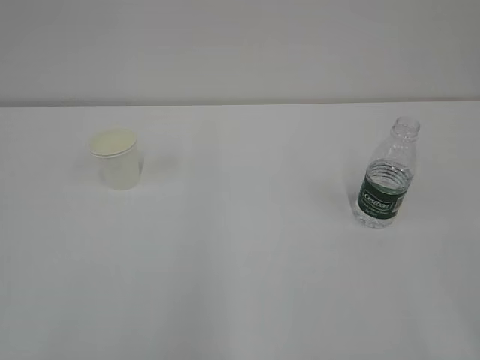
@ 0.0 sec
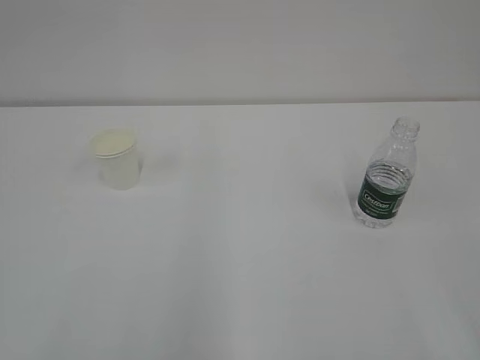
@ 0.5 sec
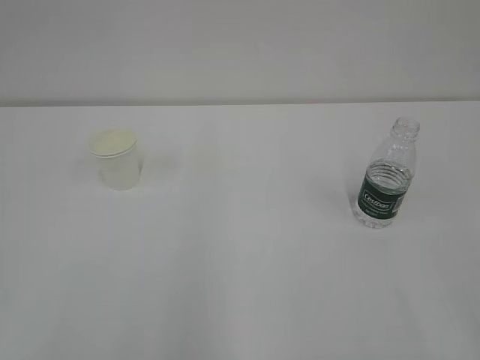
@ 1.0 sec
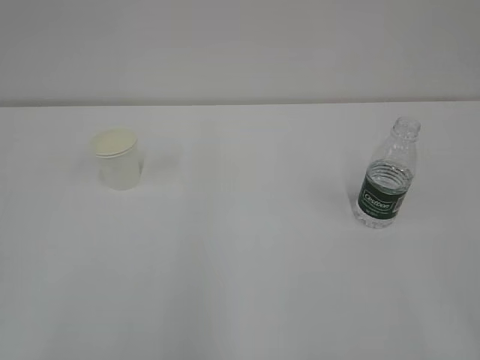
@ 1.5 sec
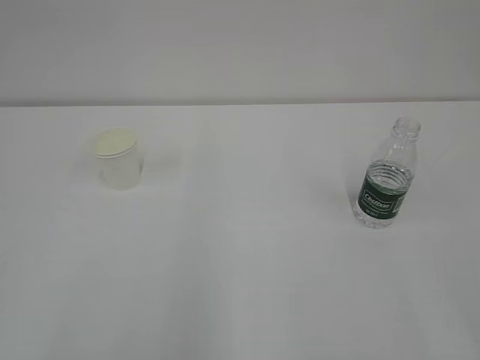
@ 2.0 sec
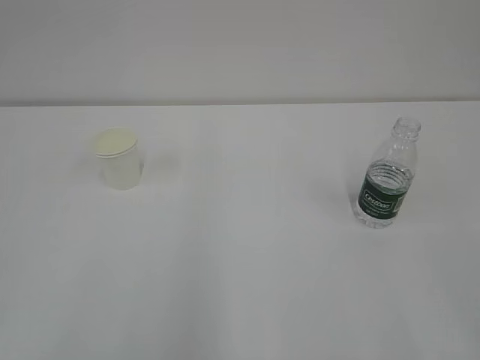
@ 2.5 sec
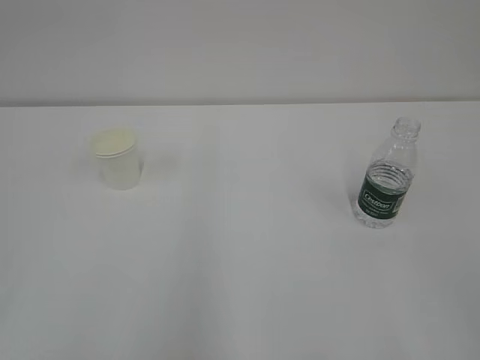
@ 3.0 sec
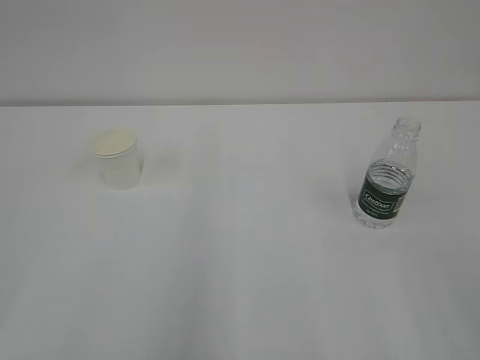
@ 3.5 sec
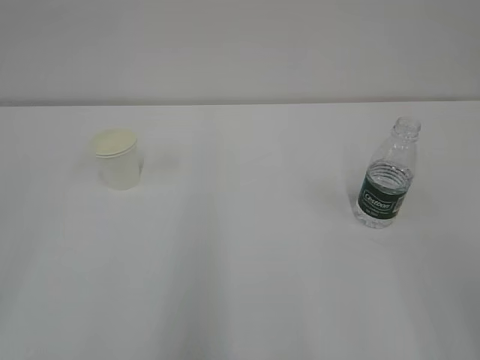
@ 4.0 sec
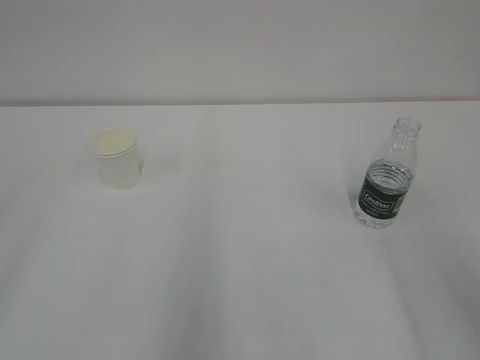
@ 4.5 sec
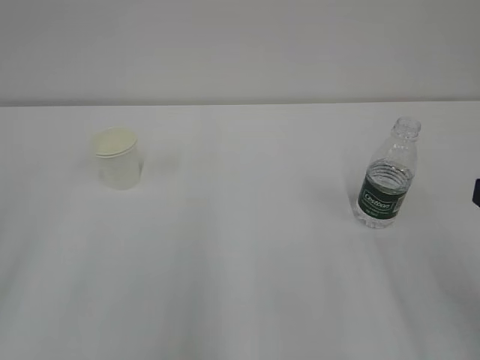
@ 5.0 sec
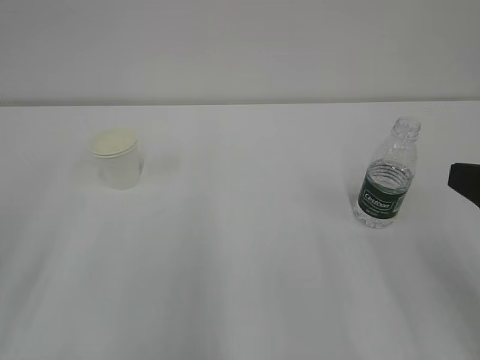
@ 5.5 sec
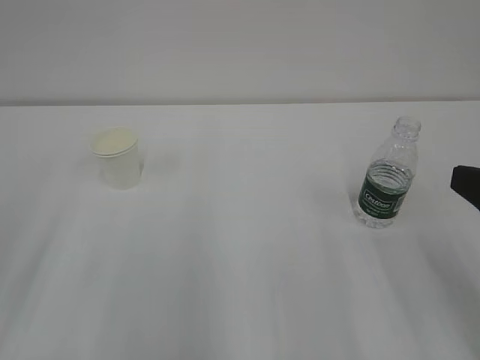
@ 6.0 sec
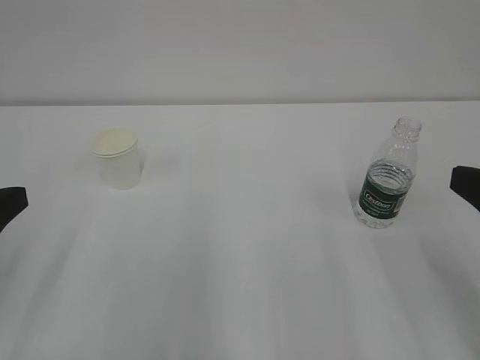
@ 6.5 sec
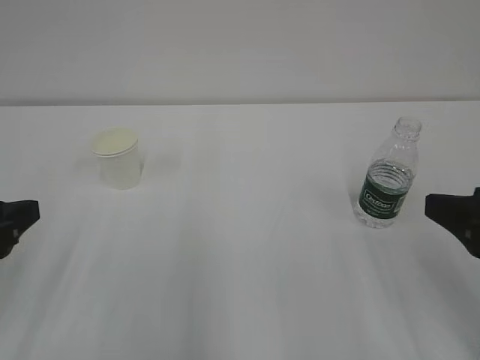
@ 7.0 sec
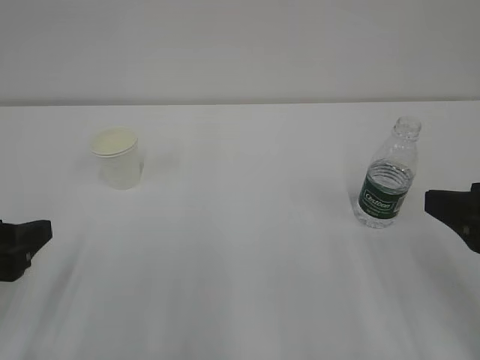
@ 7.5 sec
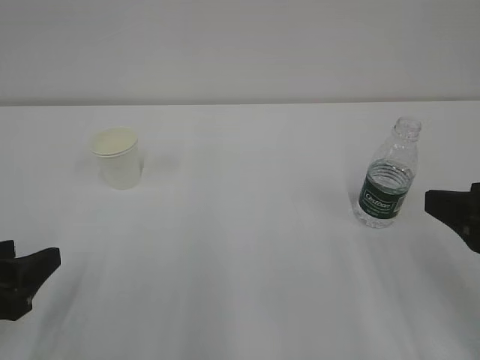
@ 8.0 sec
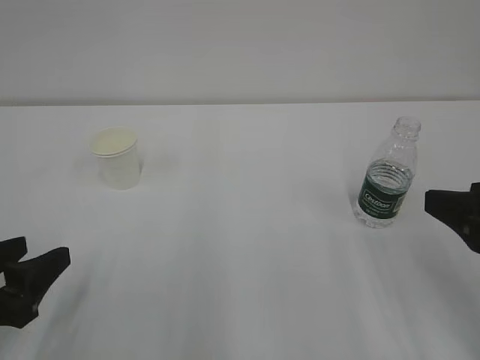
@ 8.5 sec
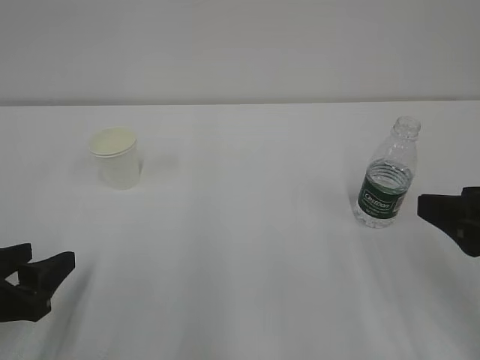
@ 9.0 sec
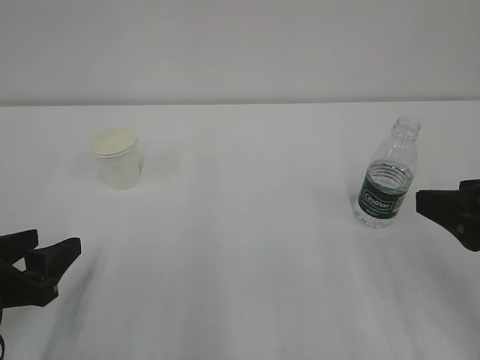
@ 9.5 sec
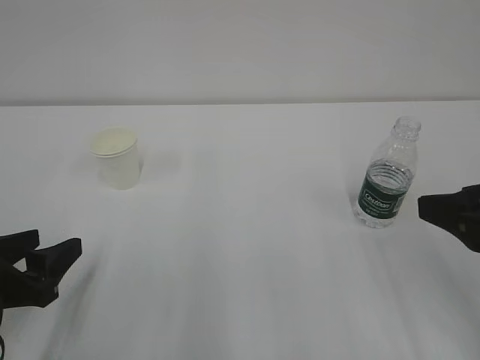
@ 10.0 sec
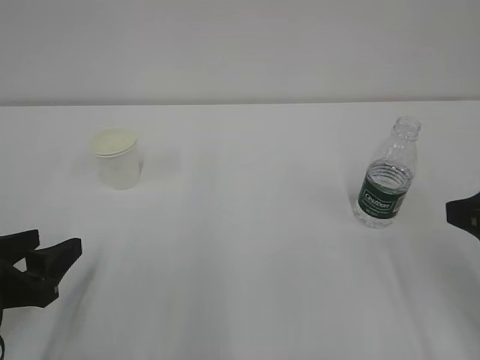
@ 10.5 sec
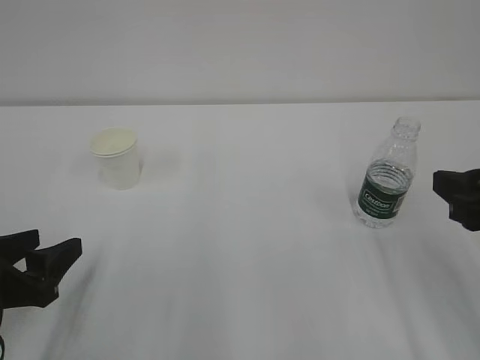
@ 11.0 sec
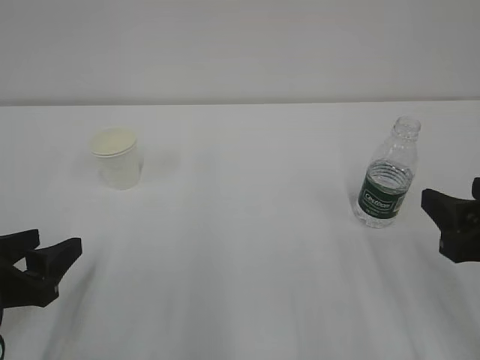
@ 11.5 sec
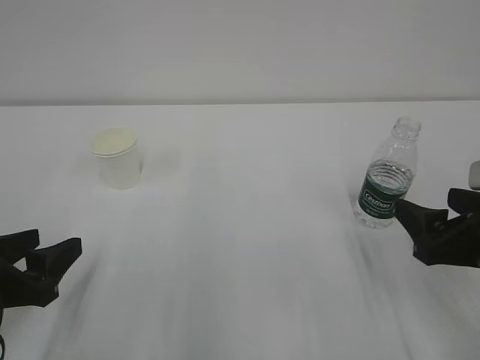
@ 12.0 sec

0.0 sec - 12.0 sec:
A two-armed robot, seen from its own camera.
6.0 sec - 8.0 sec: The left gripper goes approximately 10 cm downward.
8.0 sec - 10.0 sec: The grippers move only a little.
10.0 sec - 12.0 sec: The right gripper is displaced downward by about 5 cm, and opens up.

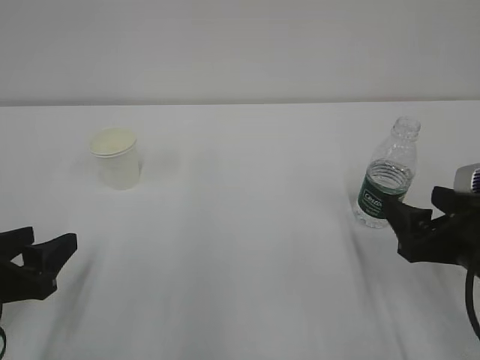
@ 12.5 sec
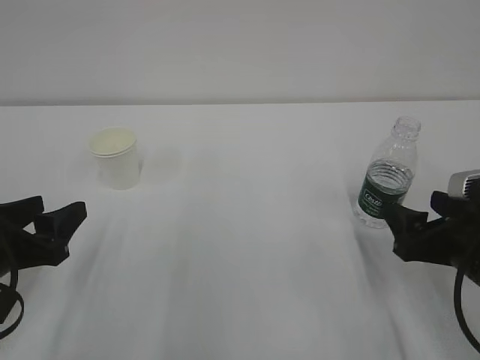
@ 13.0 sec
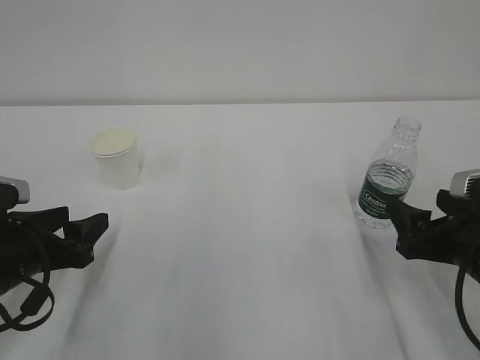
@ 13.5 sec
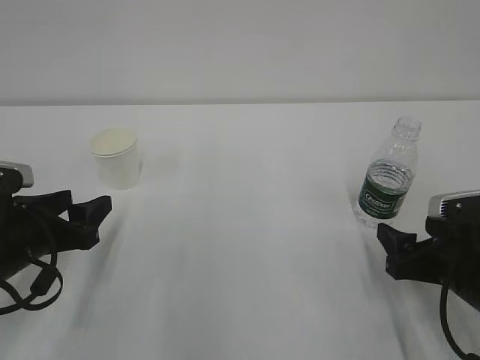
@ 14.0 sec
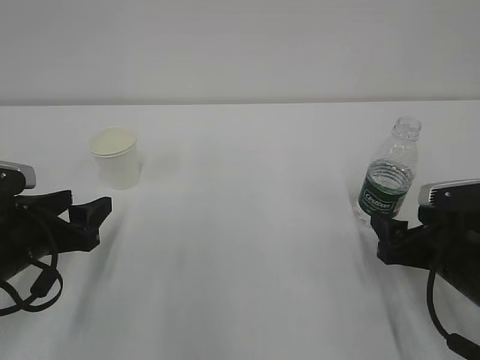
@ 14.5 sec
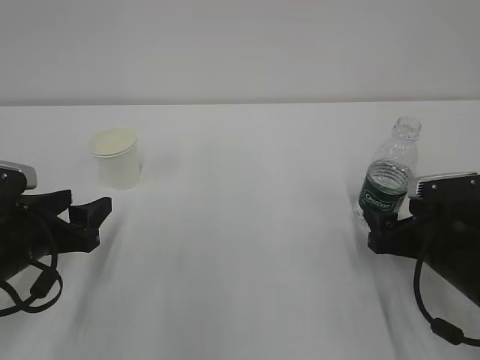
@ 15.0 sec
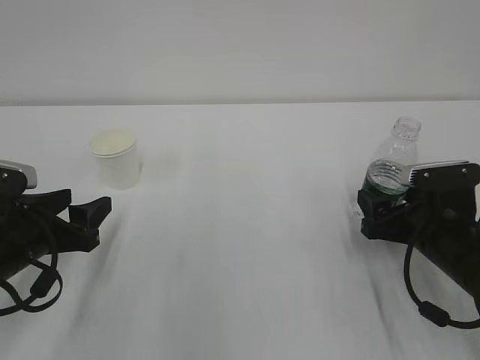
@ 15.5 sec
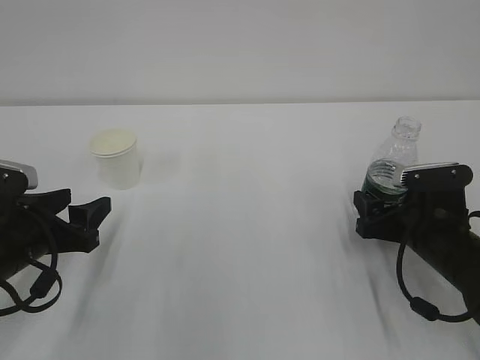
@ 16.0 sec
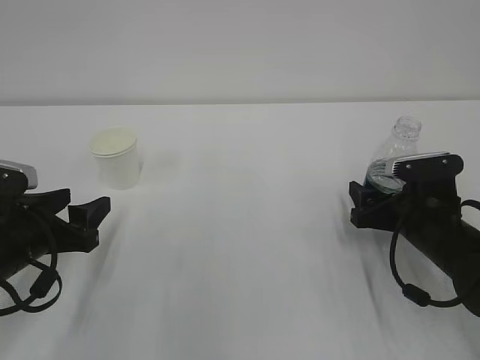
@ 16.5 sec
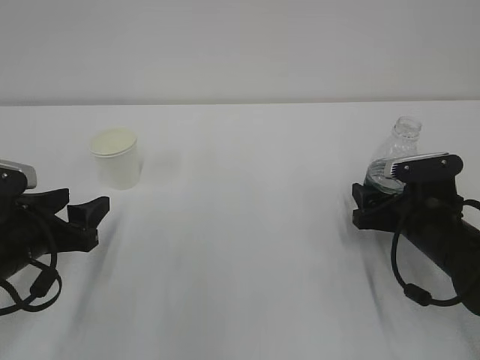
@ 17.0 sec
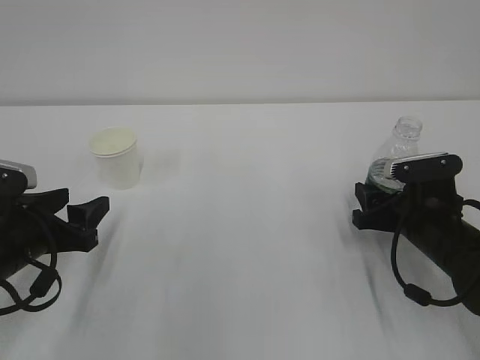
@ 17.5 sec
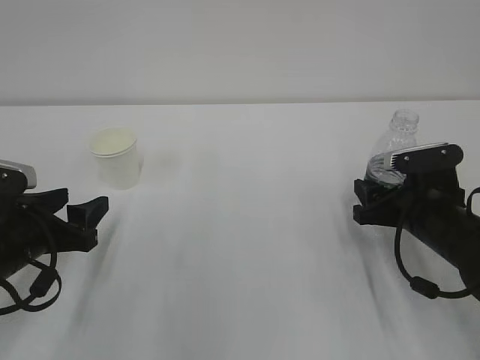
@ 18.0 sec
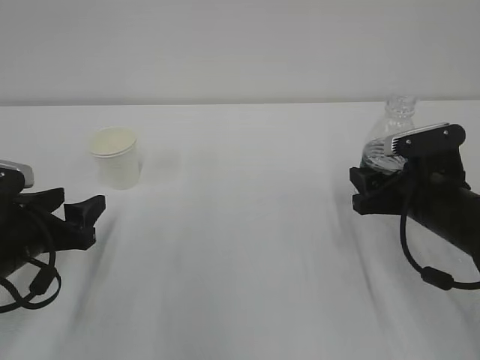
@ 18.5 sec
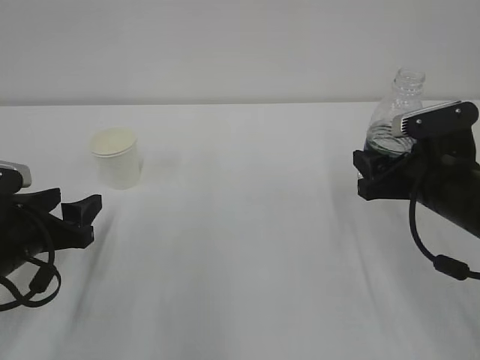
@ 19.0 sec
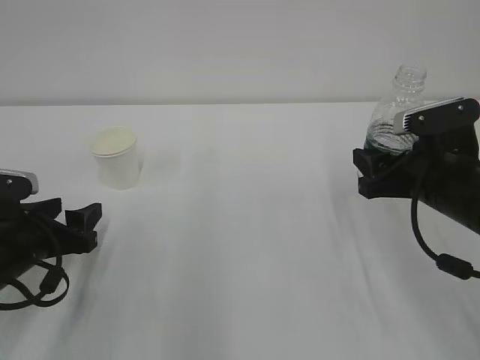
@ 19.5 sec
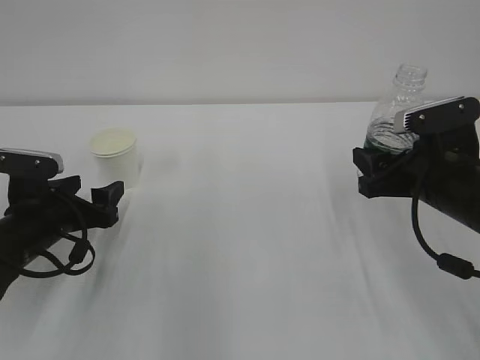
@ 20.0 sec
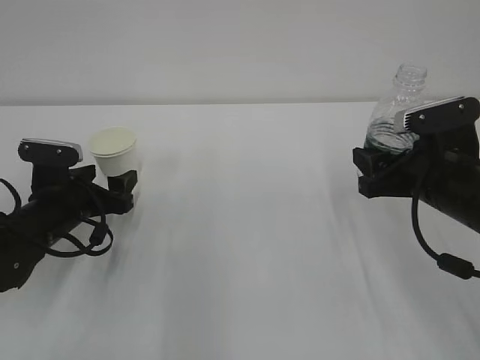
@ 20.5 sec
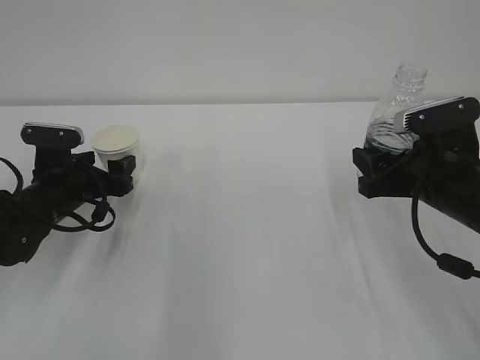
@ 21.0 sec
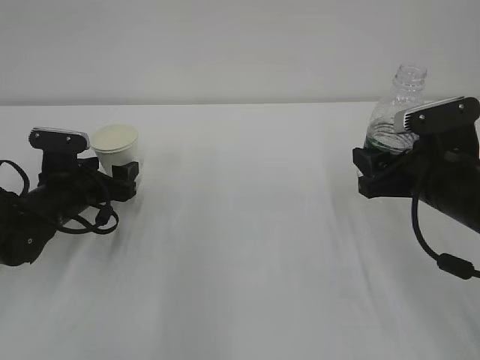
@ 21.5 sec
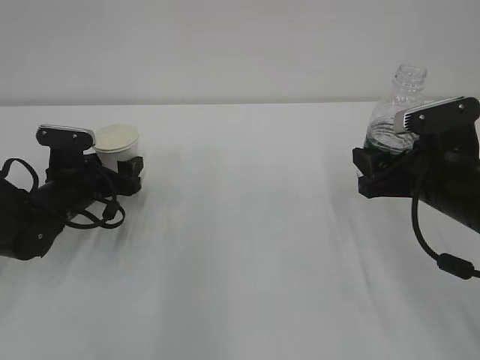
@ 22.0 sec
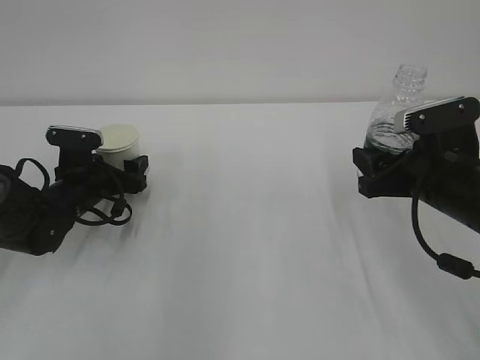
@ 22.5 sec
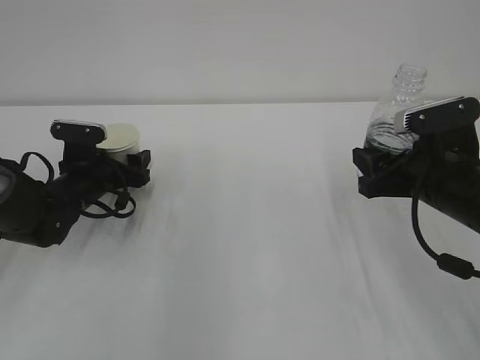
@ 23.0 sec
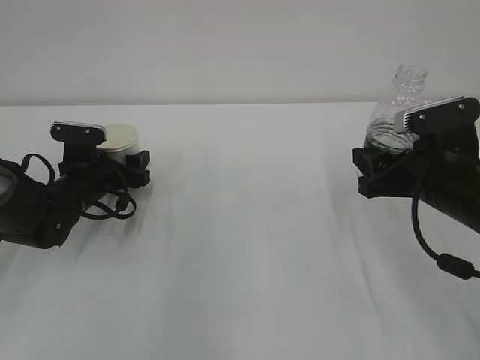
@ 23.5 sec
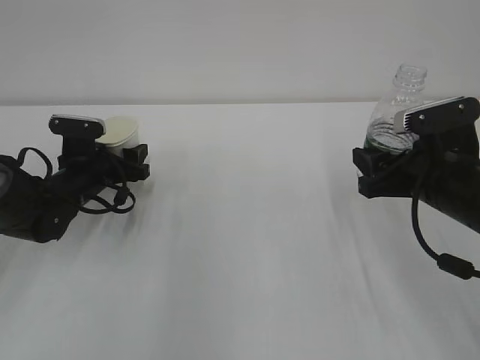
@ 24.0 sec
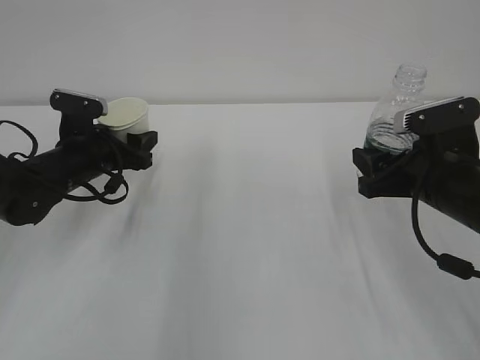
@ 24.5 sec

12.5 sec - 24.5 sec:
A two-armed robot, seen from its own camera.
12.5 sec - 14.5 sec: The right gripper heads downward, covering some 5 cm, while the left gripper is displaced forward by some 5 cm.
14.5 sec - 16.5 sec: The right gripper heads forward, covering roughly 5 cm.
16.5 sec - 18.5 sec: The right gripper closes up.
18.5 sec - 20.5 sec: The left gripper travels forward by about 10 cm, and opens its fingers.
20.5 sec - 22.5 sec: The left gripper travels forward by approximately 5 cm.
22.5 sec - 24.5 sec: The left gripper shifts roughly 5 cm upward, and closes its fingers.

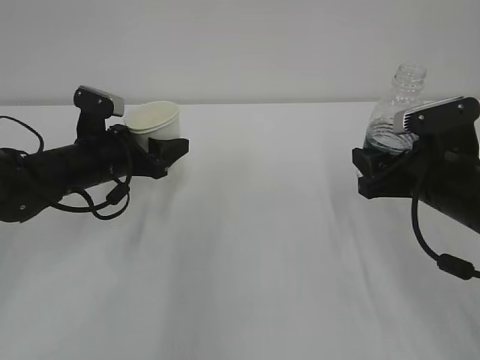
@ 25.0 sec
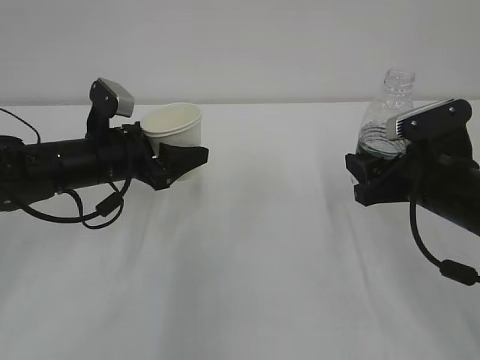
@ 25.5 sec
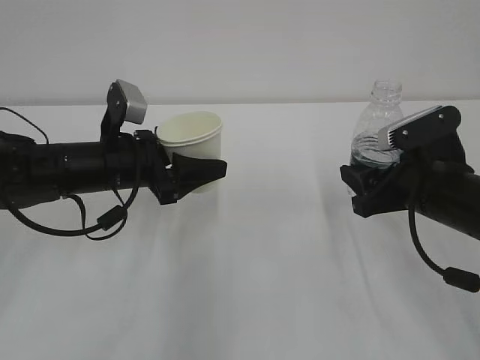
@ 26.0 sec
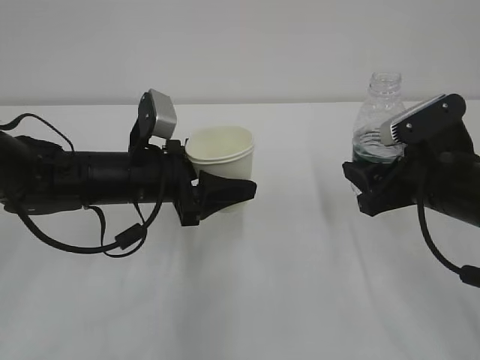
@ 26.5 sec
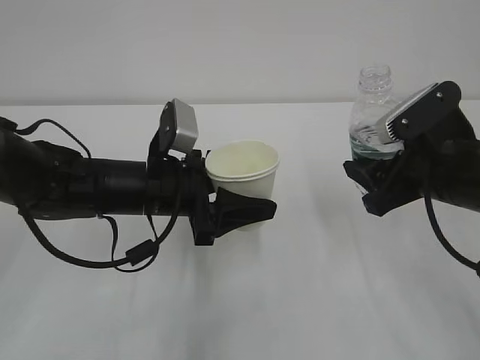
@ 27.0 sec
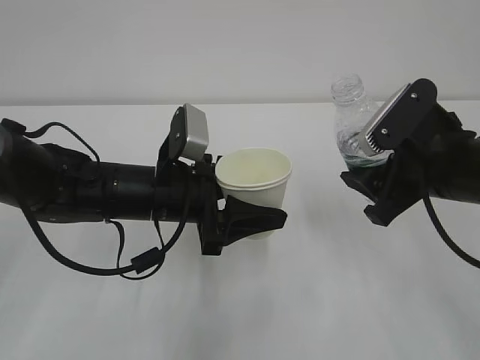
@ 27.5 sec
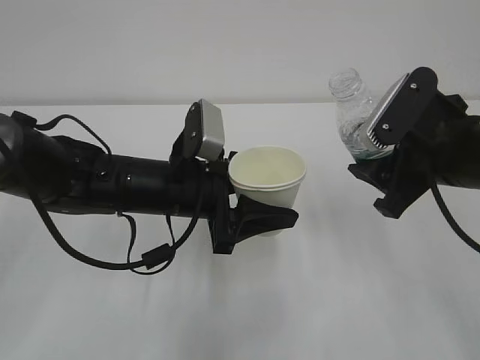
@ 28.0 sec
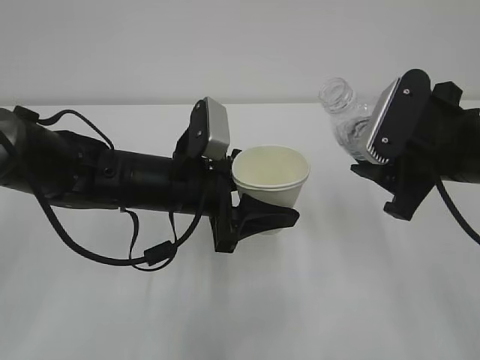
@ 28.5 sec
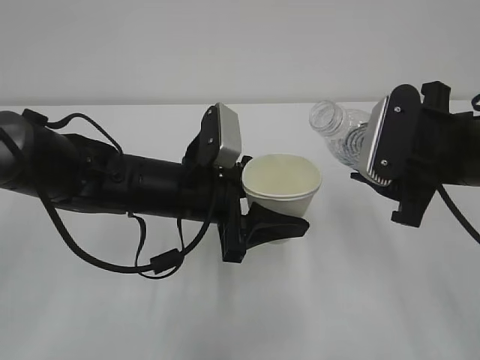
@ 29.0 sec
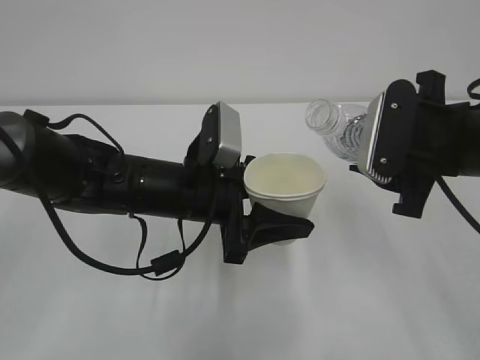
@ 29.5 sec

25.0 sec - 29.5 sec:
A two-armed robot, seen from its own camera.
25.0 sec - 27.0 sec: The left gripper goes some 10 cm to the right and backward.
